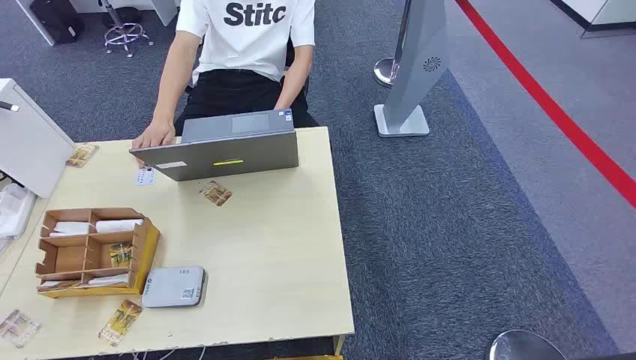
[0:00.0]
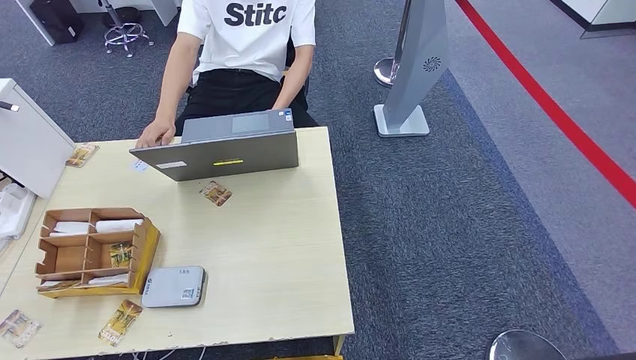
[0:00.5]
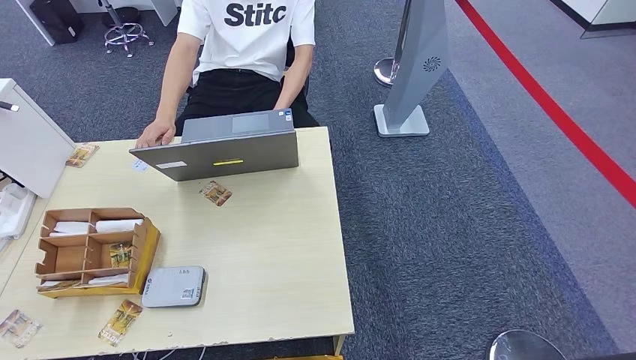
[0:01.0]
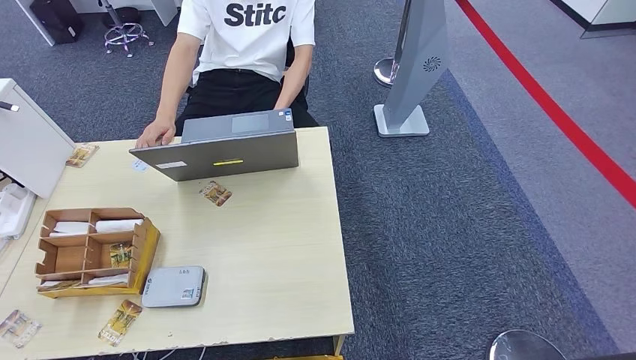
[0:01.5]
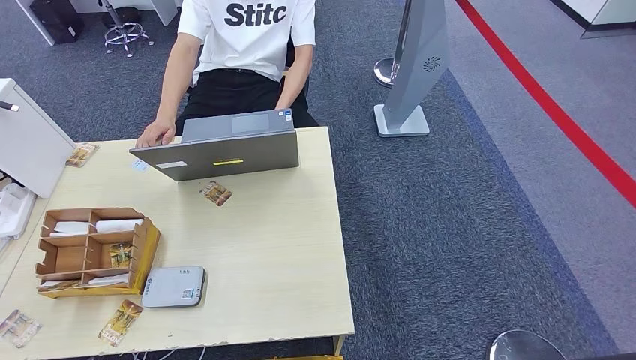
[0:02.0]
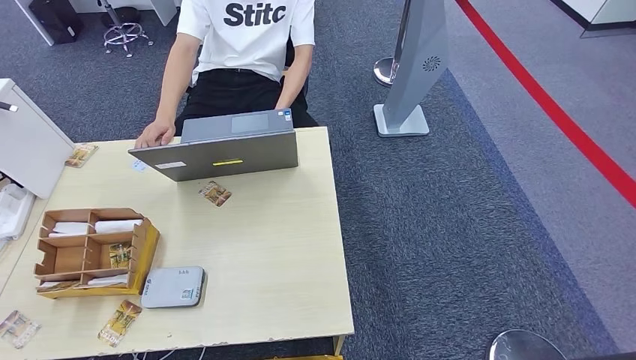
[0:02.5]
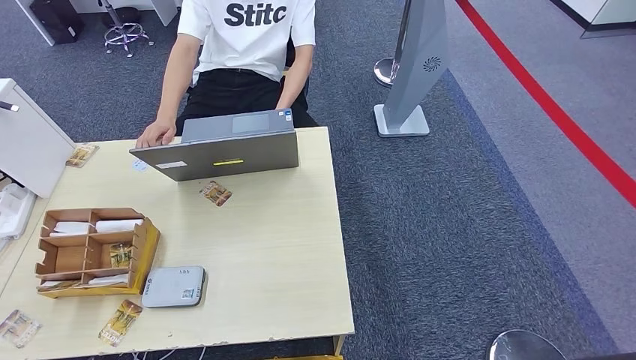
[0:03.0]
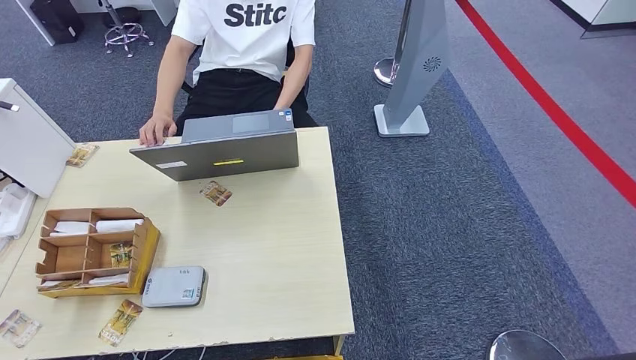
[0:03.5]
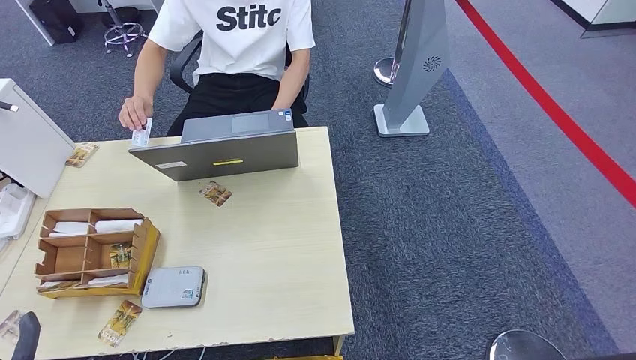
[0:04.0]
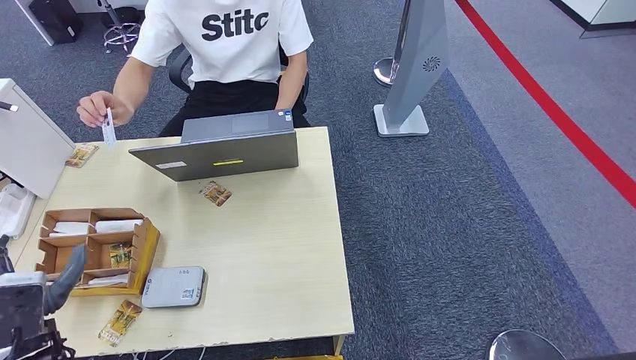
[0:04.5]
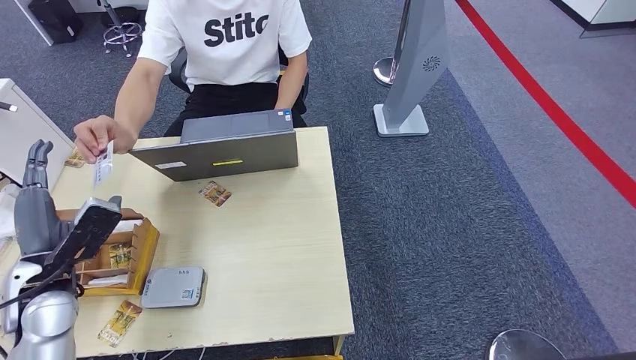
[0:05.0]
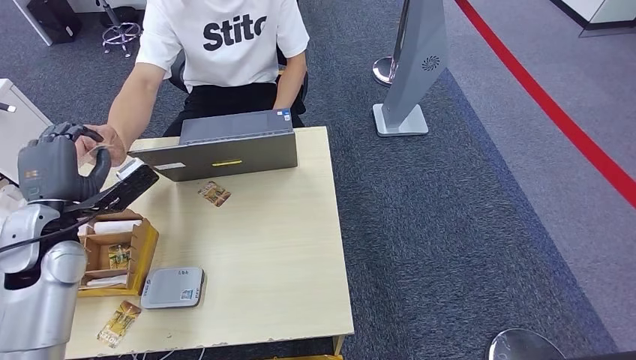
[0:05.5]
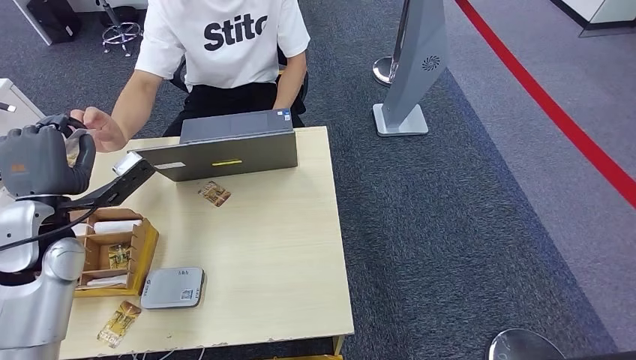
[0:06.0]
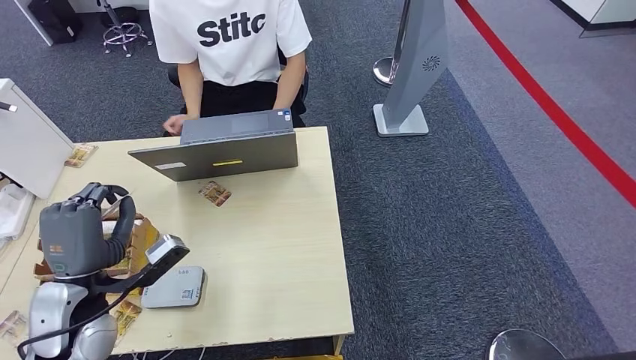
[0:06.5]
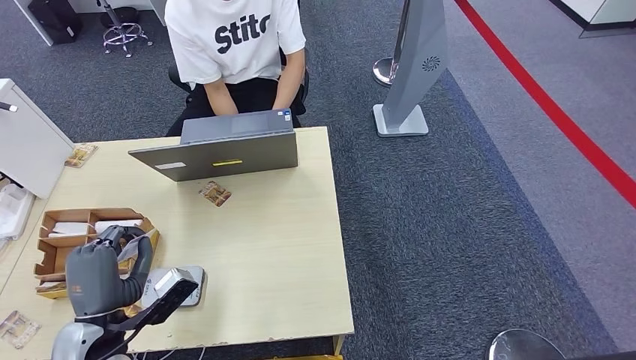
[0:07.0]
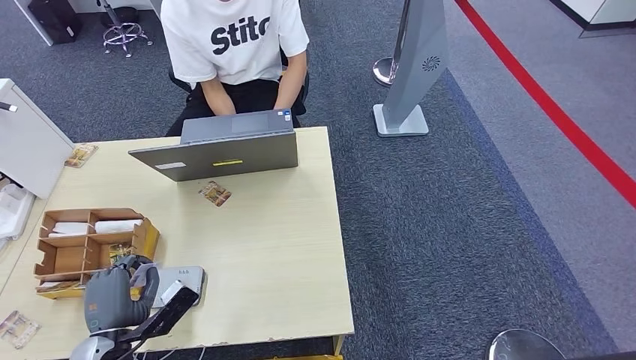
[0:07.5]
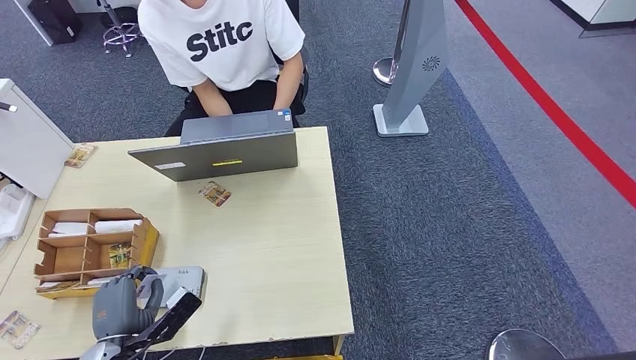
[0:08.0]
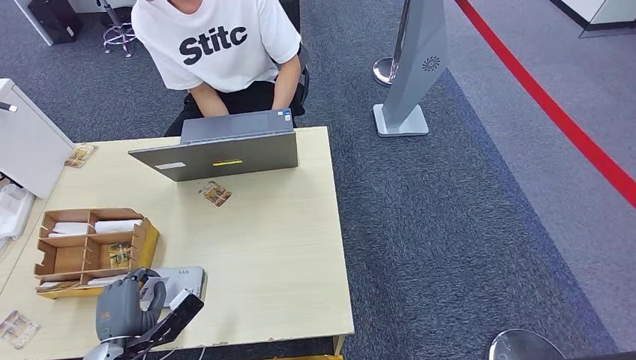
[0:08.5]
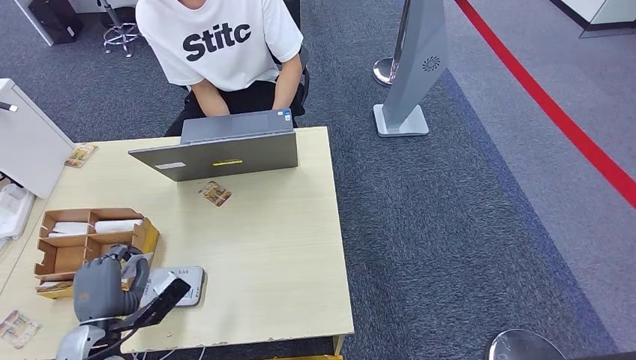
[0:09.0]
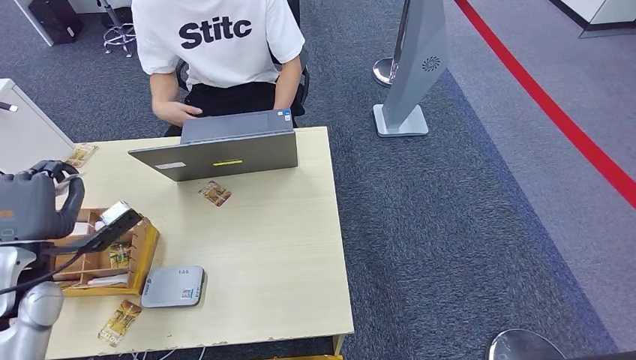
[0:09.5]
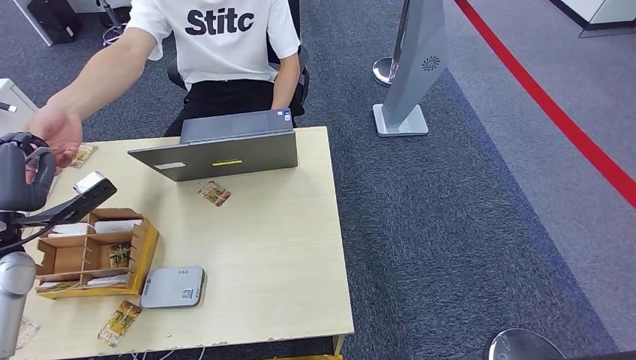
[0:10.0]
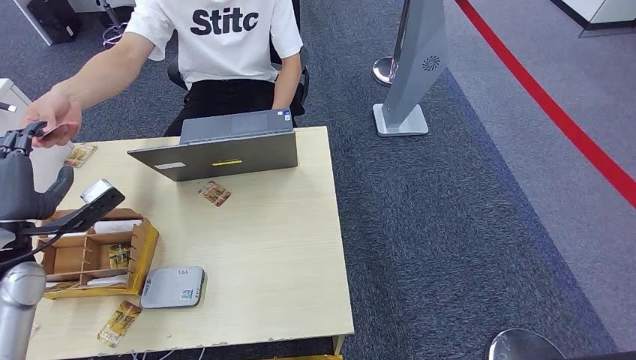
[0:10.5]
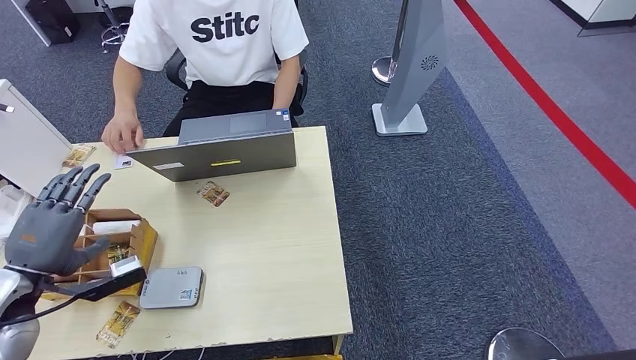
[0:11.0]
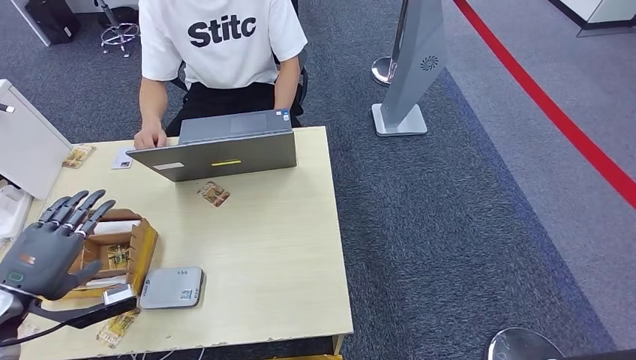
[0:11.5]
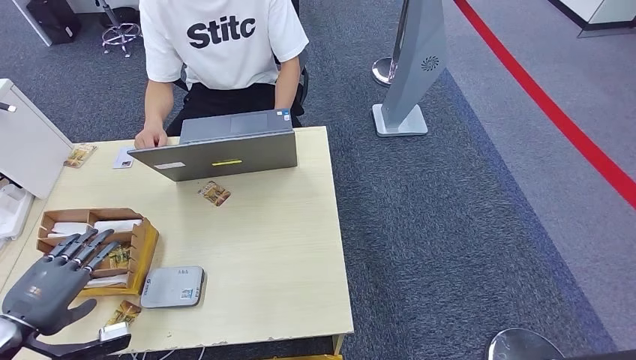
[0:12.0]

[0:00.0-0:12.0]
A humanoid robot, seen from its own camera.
Step, 0:00.0 to 0:06.0: Take the ID card from the person's hand.
Step, 0:06.5 to 0:08.0: Place the ID card on the card reader.
Step, 0:08.5 to 0:10.5: Hand the ID card to the person.
0:02.0 to 0:04.0: The left hand goes approximately 25 cm upward and forward.
0:04.0 to 0:06.0: The left hand moves forward and upward, some 30 cm.
0:06.0 to 0:08.0: The left hand shifts roughly 25 cm downward and backward.
0:08.0 to 0:10.0: The left hand moves upward, forward and to the left, some 25 cm.
0:10.0 to 0:12.0: The left hand goes approximately 15 cm backward and downward.

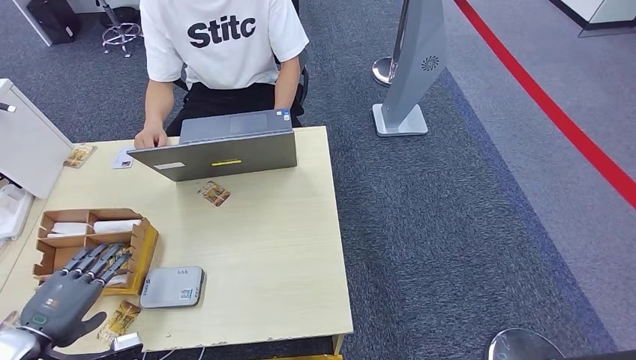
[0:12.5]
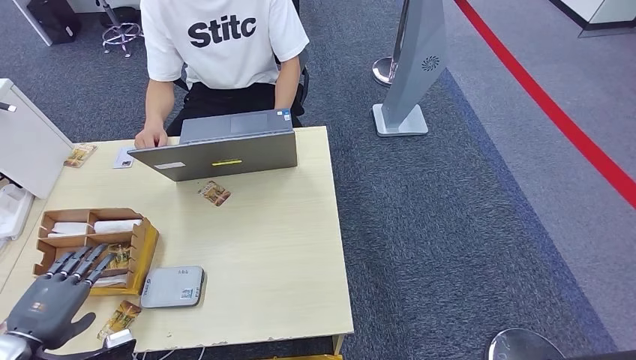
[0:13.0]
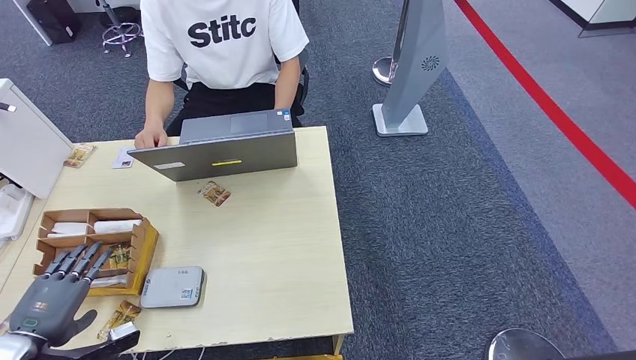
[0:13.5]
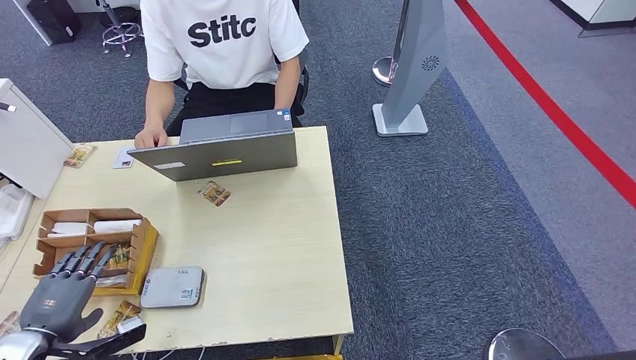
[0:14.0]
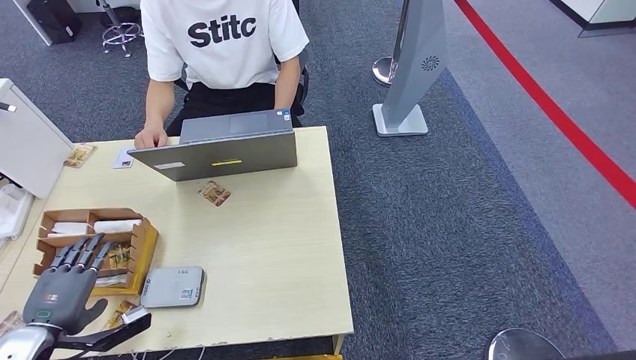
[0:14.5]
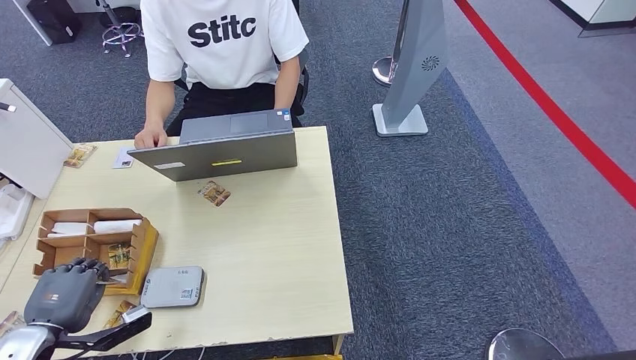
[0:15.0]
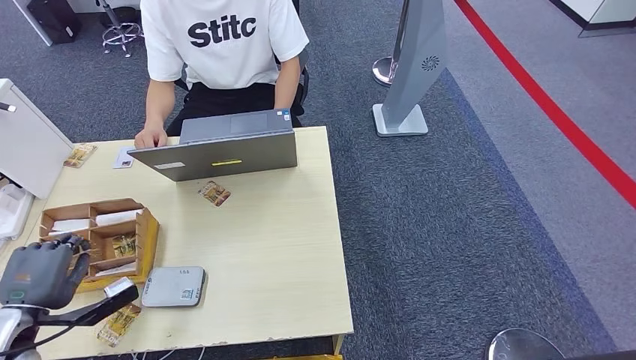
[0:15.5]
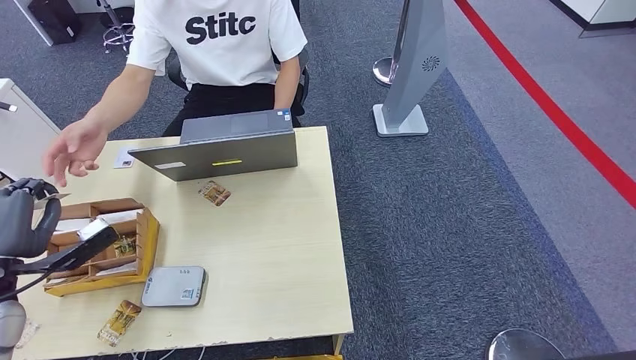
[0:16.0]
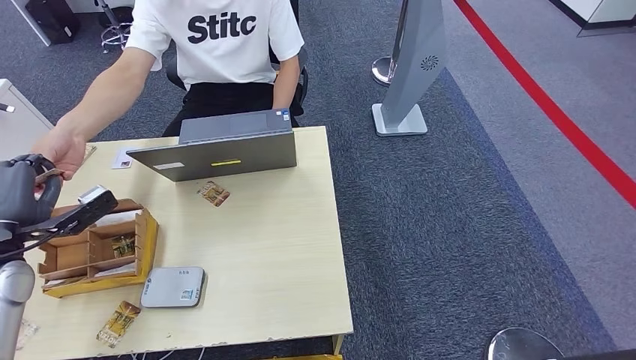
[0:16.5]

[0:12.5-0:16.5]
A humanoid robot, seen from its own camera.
Step, 0:12.5 to 0:15.5: Pick up the room key from the key card box.
Step, 0:16.0 to 0:16.5: Hand the room key to the person.
0:12.5 to 0:14.5: There are only small adjustments of the hands.
0:14.5 to 0:16.5: The left hand is displaced forward and upward by roughly 15 cm.
